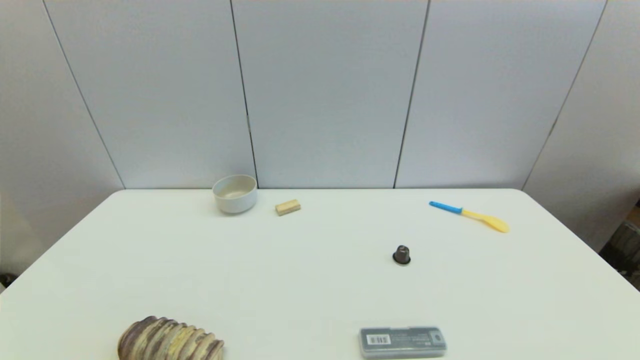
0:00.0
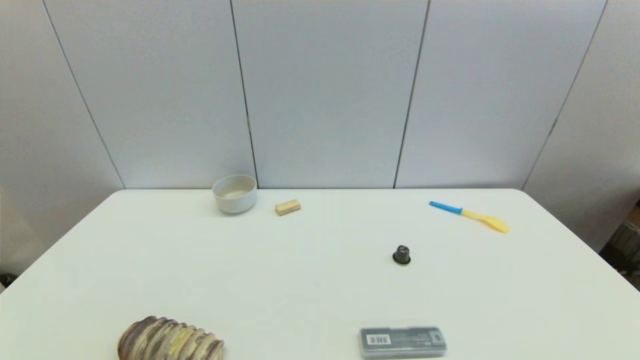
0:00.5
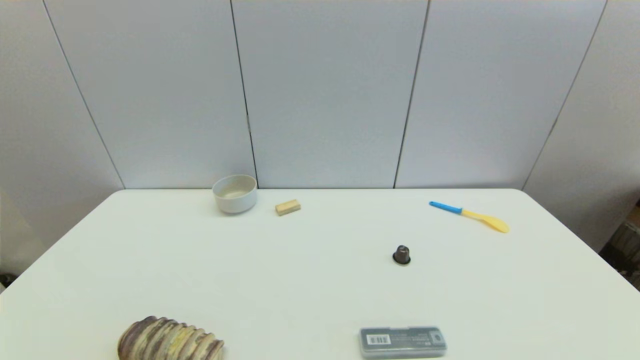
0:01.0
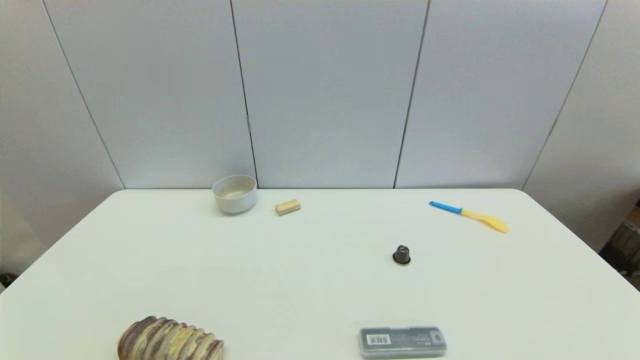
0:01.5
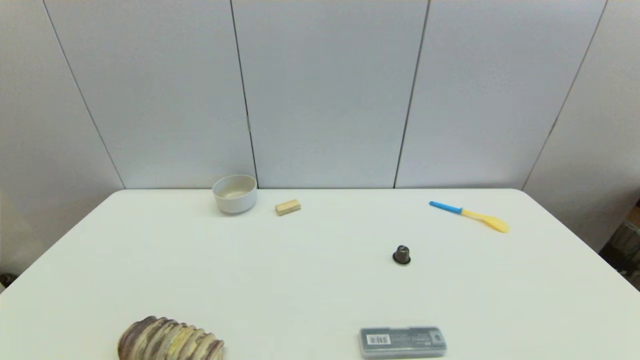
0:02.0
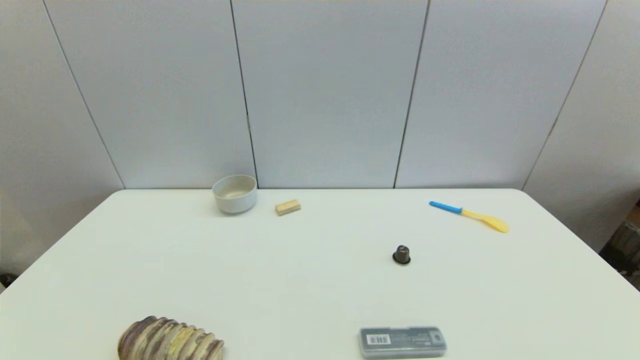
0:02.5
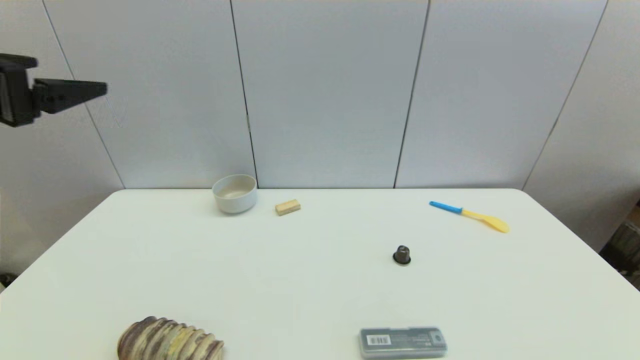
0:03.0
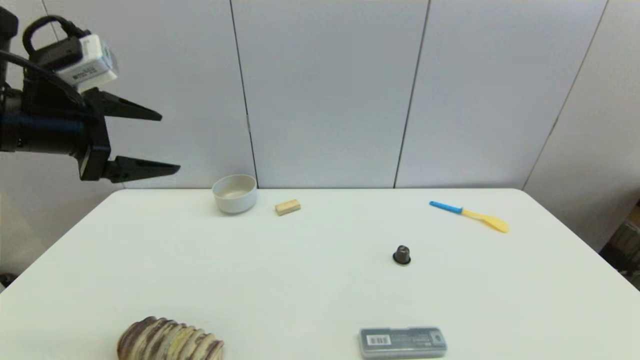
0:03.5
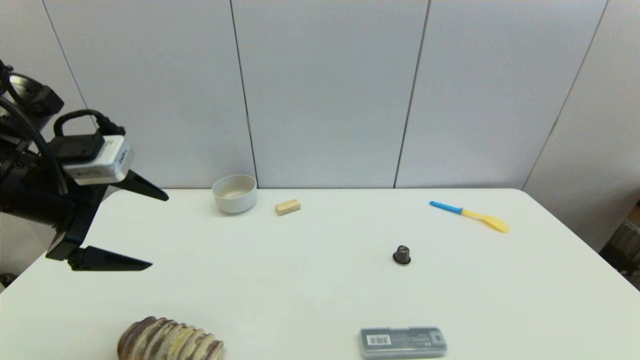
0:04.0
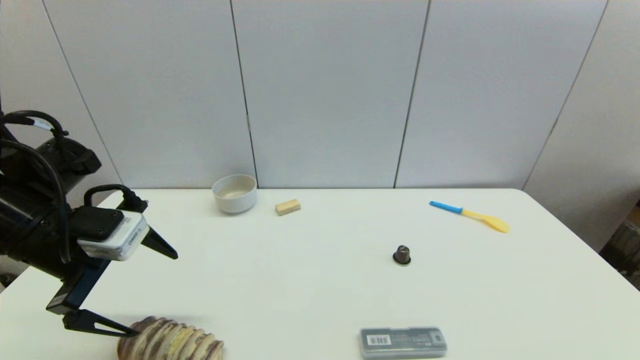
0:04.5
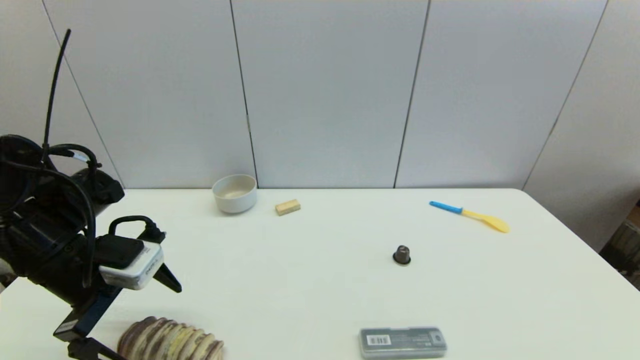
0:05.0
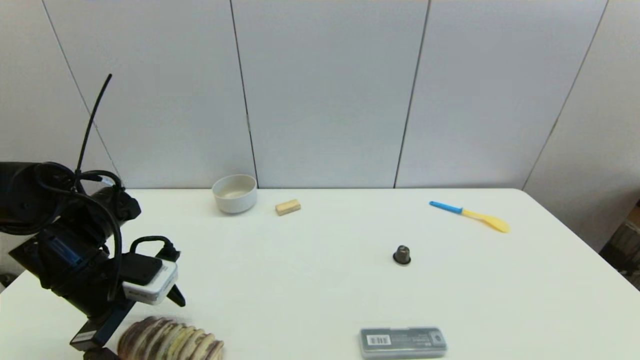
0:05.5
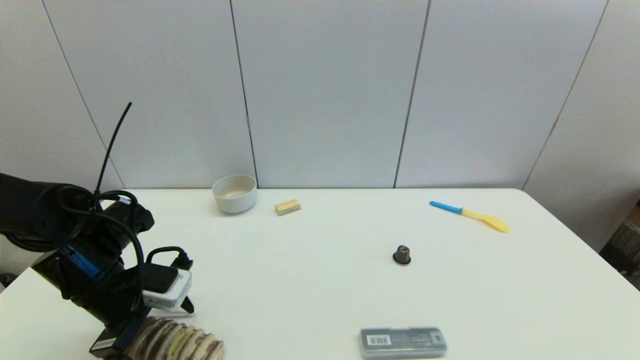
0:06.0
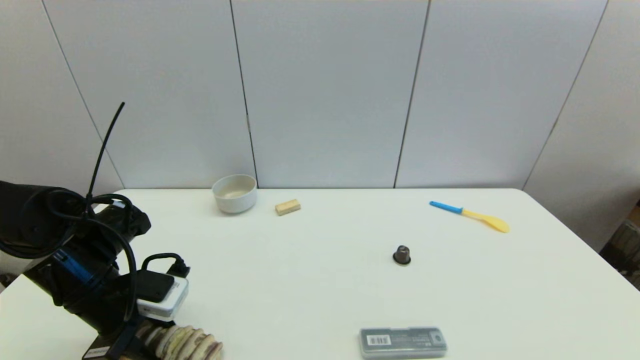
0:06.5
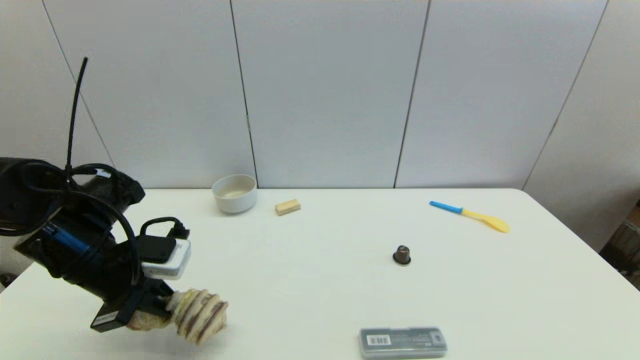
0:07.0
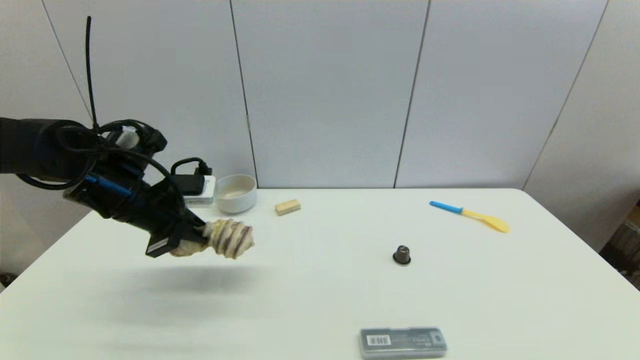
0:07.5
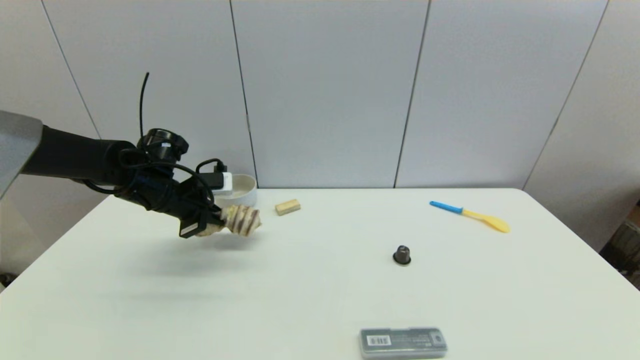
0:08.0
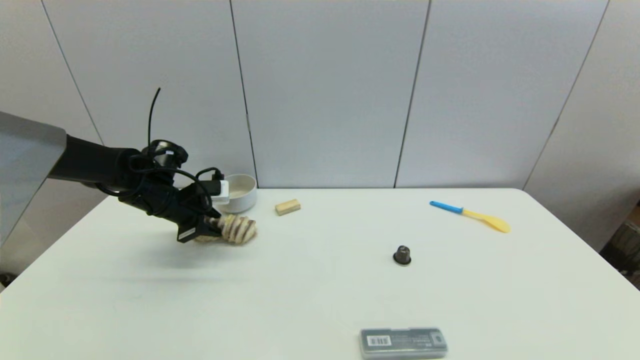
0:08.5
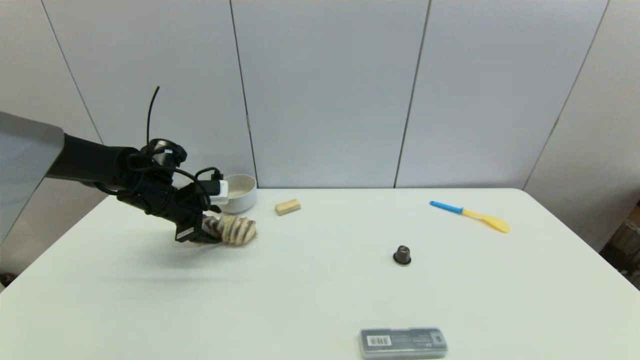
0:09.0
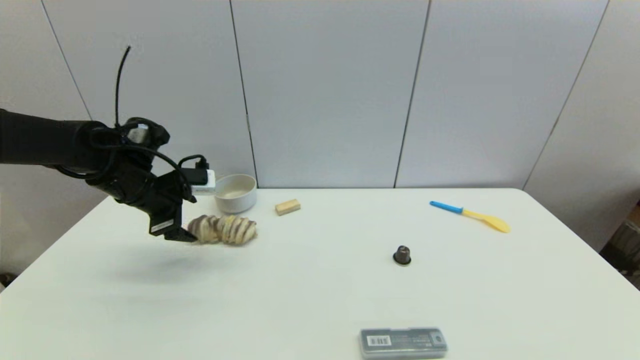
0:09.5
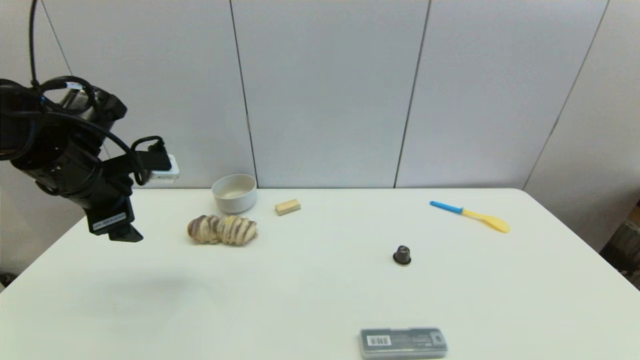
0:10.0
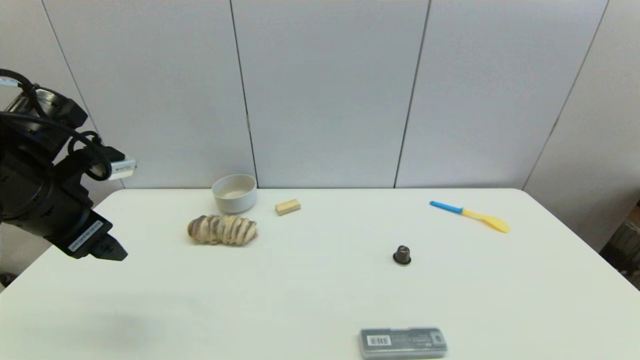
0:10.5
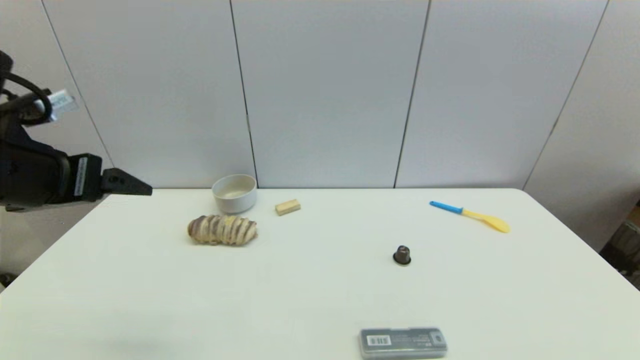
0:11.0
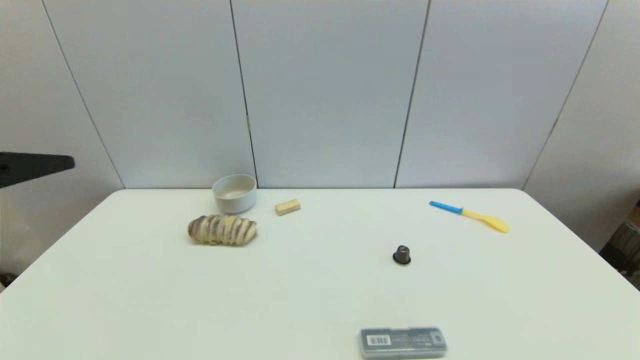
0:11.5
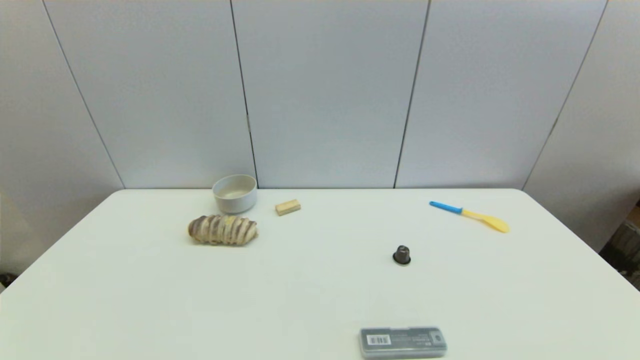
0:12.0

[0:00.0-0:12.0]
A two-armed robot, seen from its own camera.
Step, 0:03.0 to 0:06.5: Grasp the long bread with left gripper.
Step, 0:07.0 to 0:09.0: Place the long bread on the table with left gripper.
0:02.0 to 0:04.0: The left gripper heads forward and upward, covering some 30 cm.
0:04.0 to 0:06.0: The left gripper is displaced downward by some 15 cm.
0:06.0 to 0:08.0: The left gripper travels forward by some 15 cm, and closes up.
0:08.0 to 0:10.0: The left gripper shifts approximately 10 cm upward and backward, and opens its fingers.
0:10.0 to 0:12.0: The left gripper heads backward, covering roughly 30 cm.

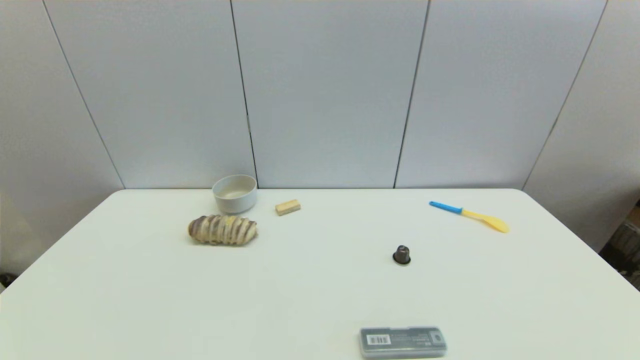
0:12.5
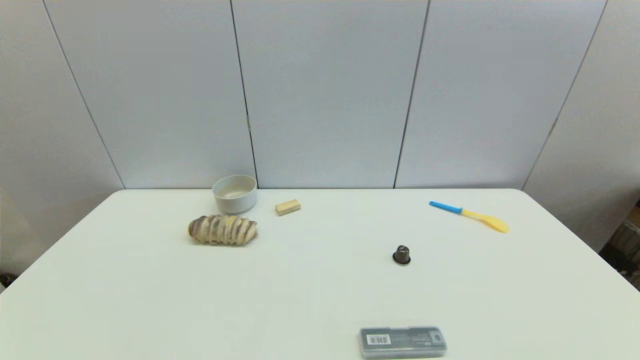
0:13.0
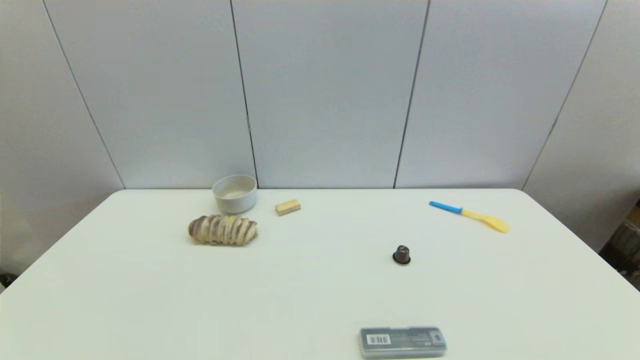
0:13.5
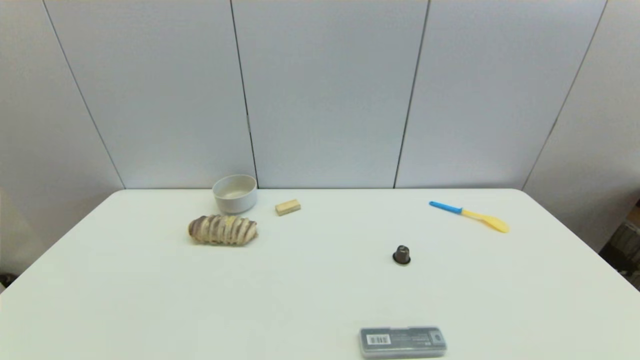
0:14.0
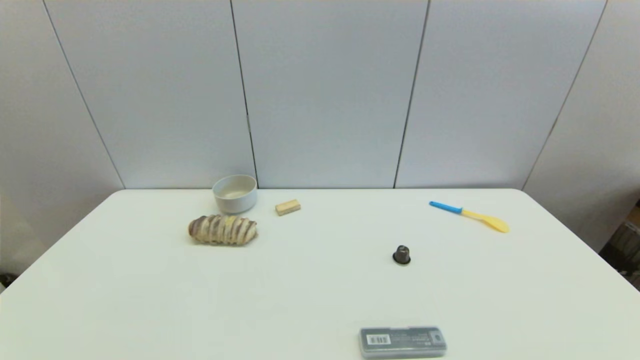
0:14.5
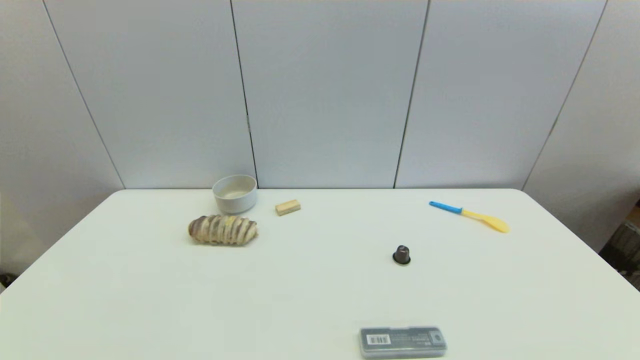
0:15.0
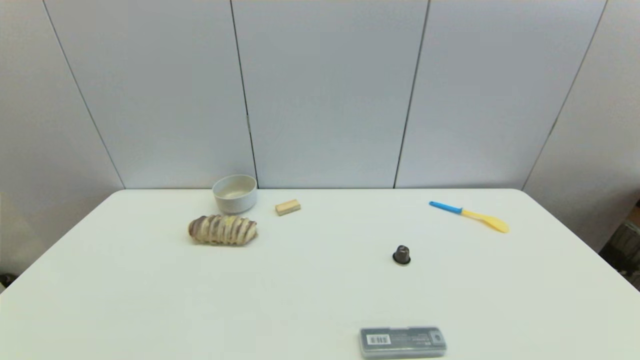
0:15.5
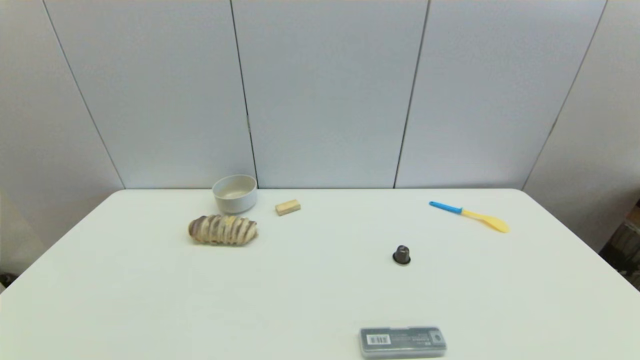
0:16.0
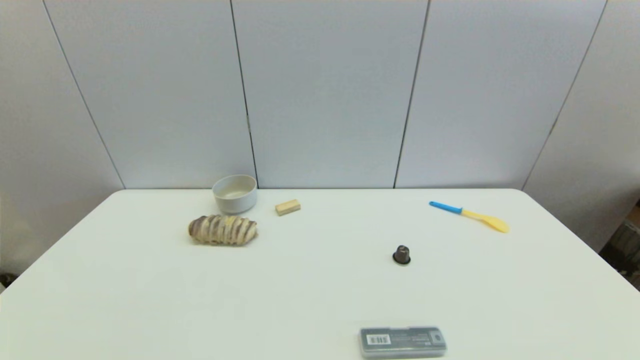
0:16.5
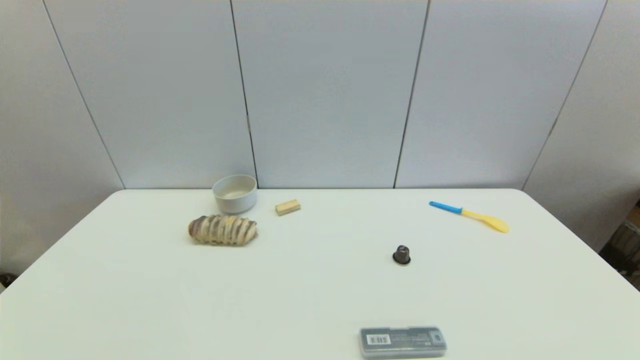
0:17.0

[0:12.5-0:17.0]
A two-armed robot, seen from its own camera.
0:14.5 to 0:17.0: Both grippers stay put.
